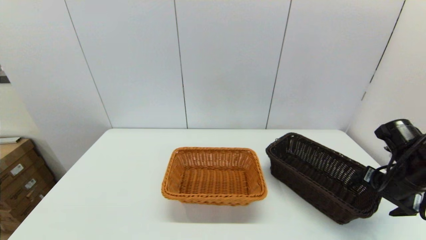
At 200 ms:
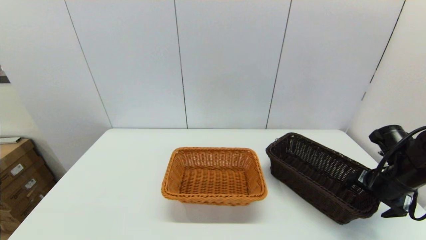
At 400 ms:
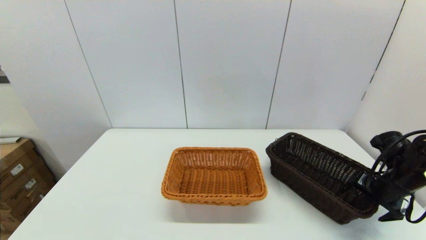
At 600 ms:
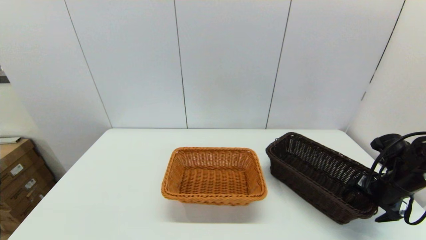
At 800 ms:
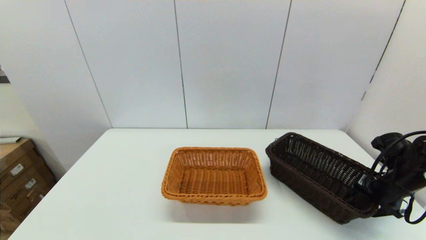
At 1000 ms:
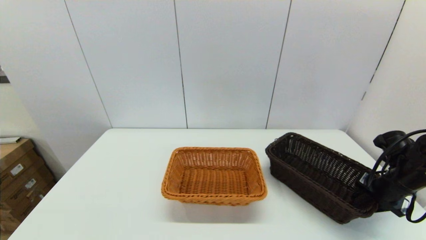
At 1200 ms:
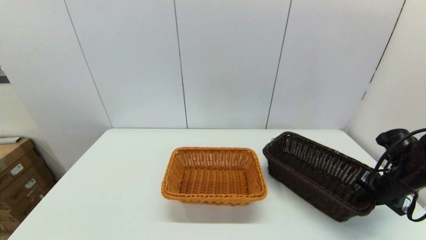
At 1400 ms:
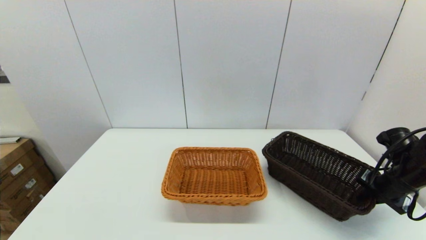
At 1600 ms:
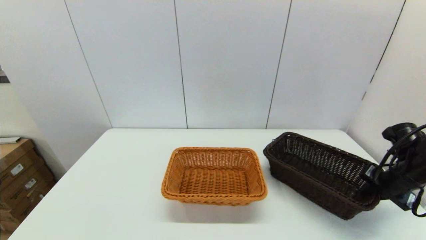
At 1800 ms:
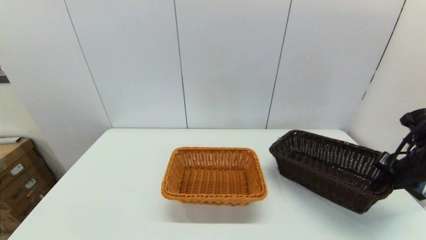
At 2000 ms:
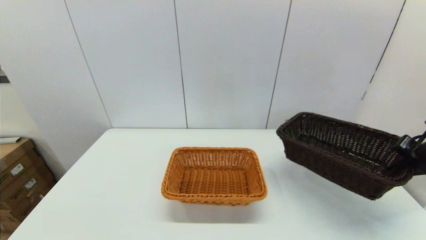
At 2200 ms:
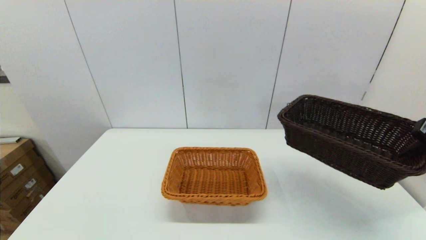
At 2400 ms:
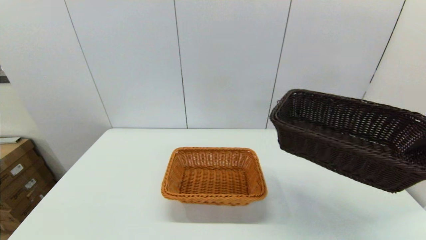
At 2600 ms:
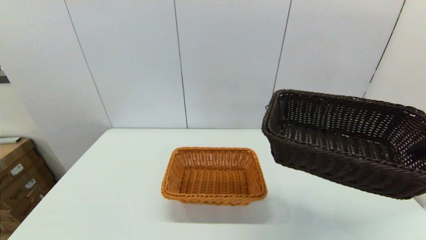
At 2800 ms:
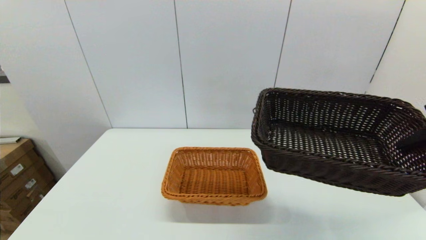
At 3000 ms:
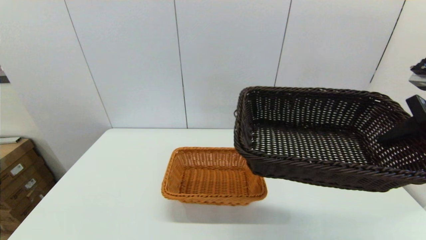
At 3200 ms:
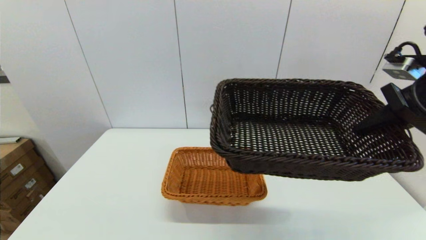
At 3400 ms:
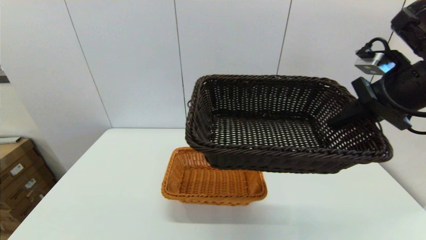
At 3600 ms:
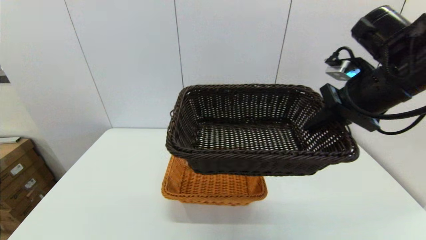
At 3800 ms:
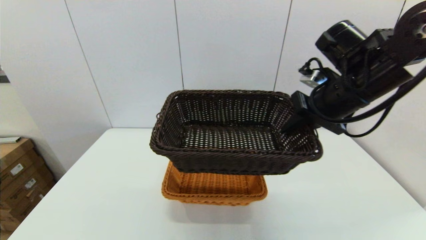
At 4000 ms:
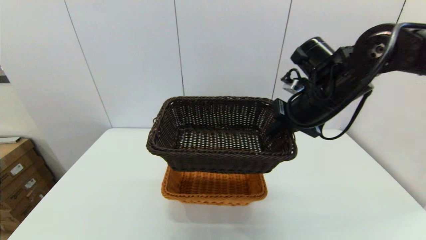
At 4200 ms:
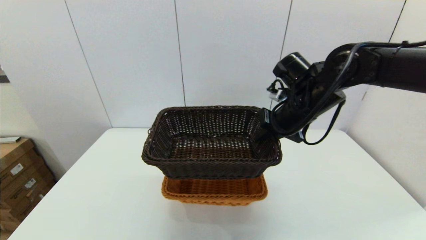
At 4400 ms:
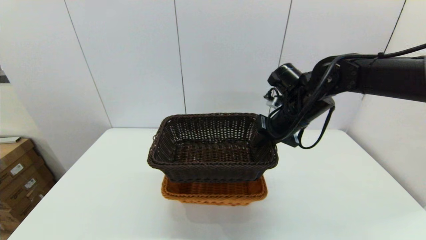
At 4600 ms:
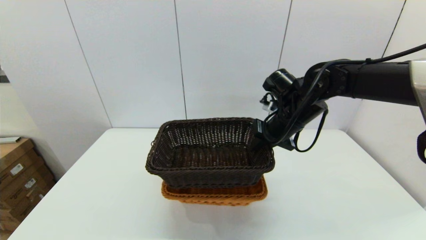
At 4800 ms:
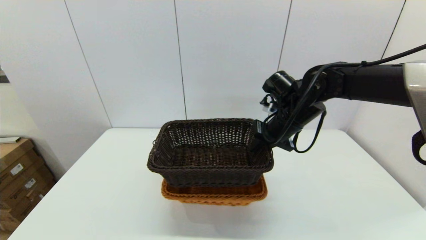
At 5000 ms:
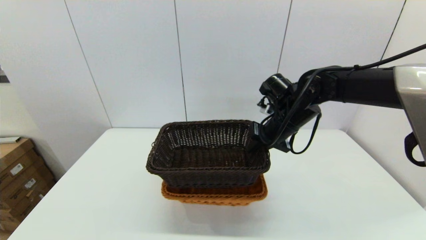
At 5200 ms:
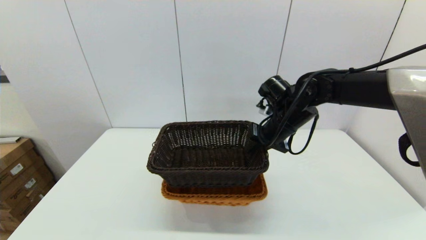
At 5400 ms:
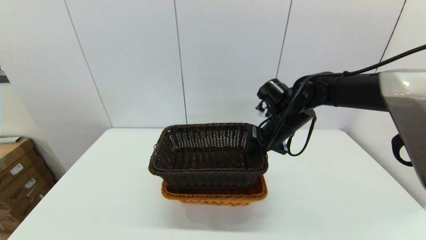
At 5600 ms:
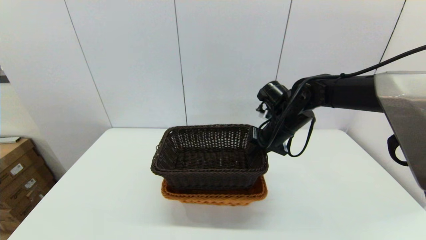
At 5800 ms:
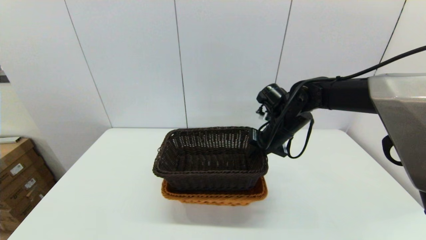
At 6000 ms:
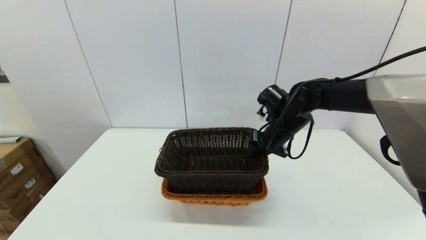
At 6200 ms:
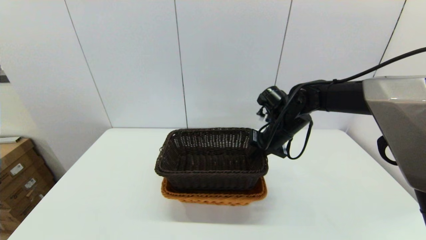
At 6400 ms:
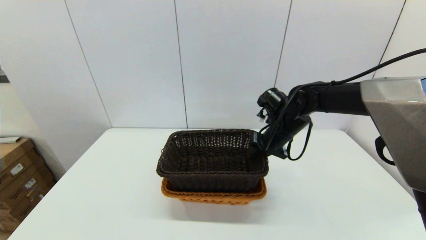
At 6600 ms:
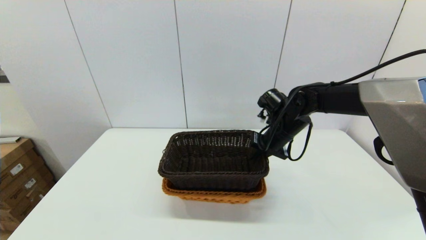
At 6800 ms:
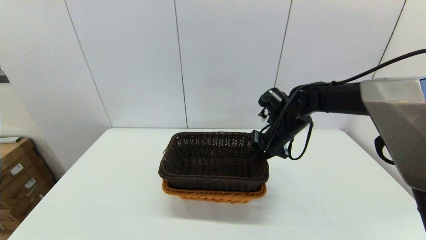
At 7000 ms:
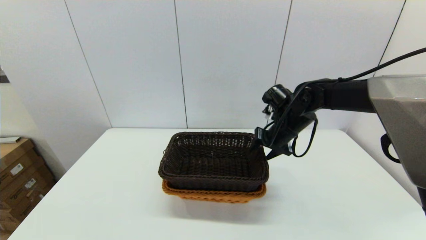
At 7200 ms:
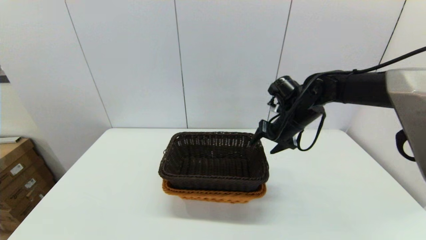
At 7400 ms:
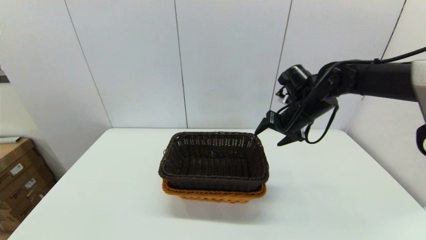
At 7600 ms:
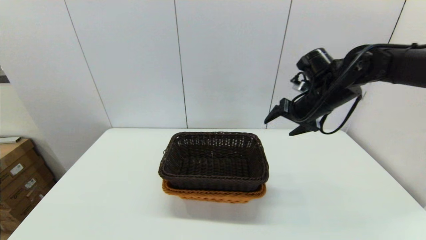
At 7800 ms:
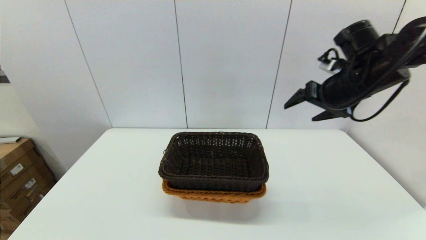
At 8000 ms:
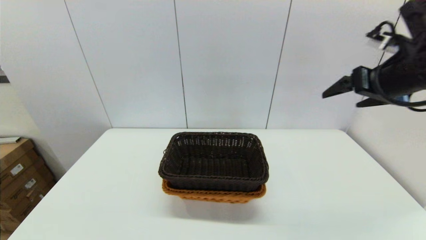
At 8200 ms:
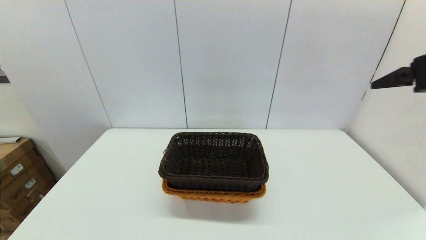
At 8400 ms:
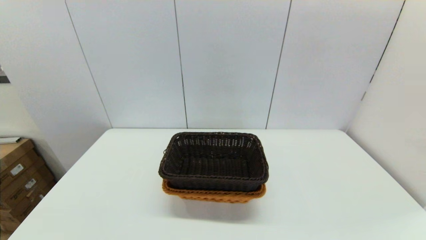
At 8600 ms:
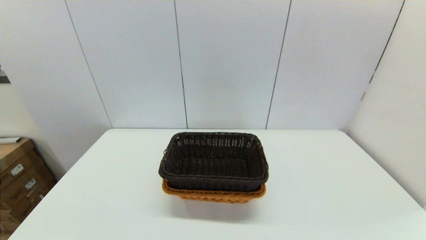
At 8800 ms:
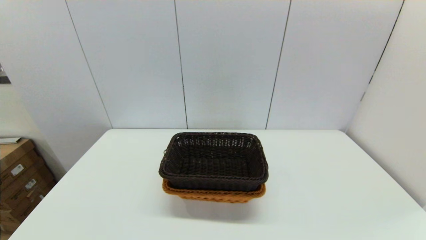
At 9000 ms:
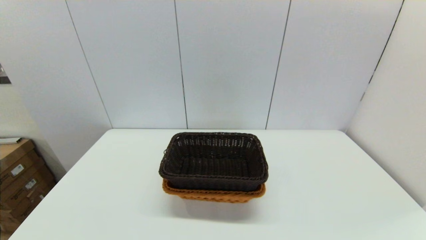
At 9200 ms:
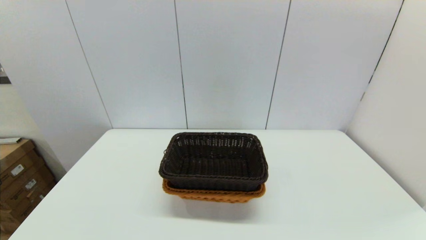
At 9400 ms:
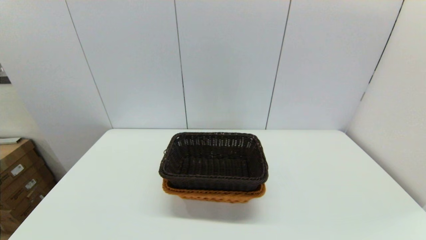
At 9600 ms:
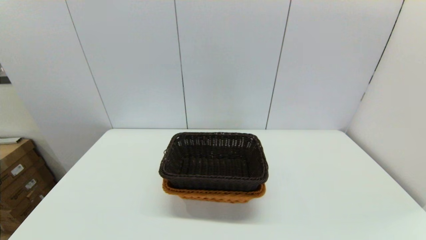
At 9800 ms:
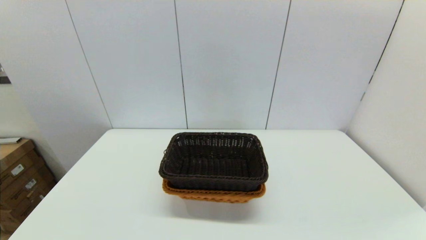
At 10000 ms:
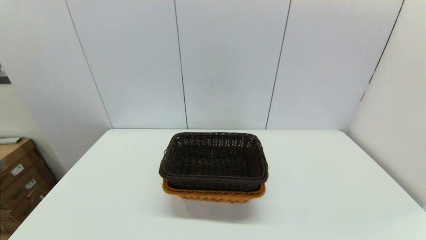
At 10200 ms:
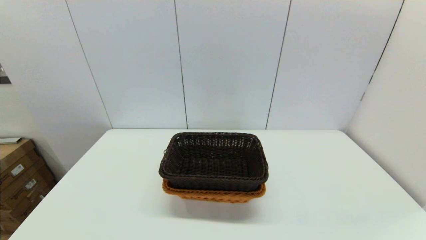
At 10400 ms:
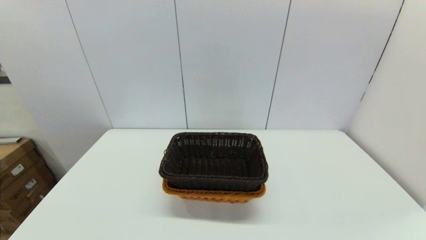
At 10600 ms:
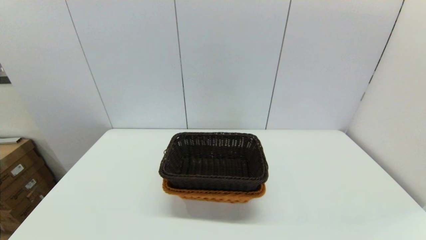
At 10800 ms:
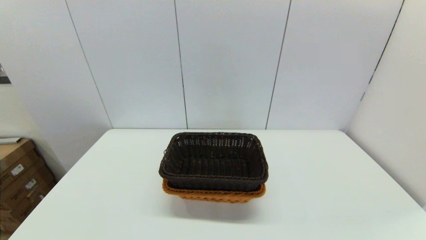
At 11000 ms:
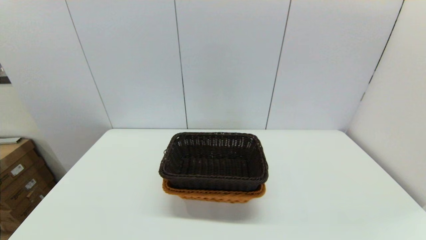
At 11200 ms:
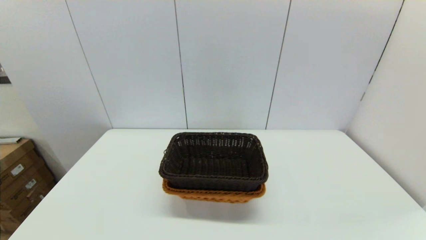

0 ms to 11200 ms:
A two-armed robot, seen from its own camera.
Task of the whole recording: stack a basket on top of another basket.
Step, 1200 ms to 7400 ms: Place the dark basket into the light color basket with the right gripper.
0 ms to 1600 ms: The right gripper closes.
1600 ms to 3200 ms: The right gripper travels upward and to the left by approximately 25 cm.
3200 ms to 4800 ms: The right gripper is displaced to the left, forward and downward by approximately 25 cm.
4800 ms to 6400 ms: The right gripper shifts by about 5 cm.
6400 ms to 8000 ms: The right gripper shifts approximately 25 cm upward, to the right and backward, and opens its fingers.
8000 ms to 9600 ms: The right gripper is displaced backward and downward by approximately 35 cm.

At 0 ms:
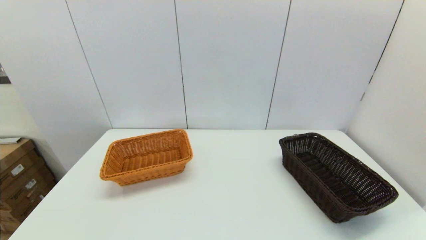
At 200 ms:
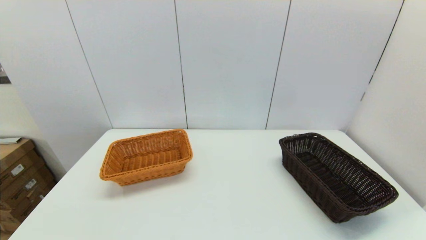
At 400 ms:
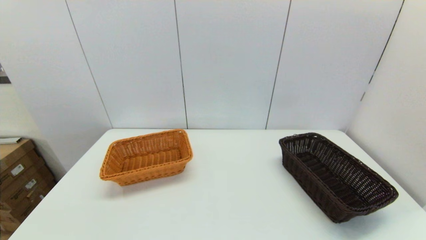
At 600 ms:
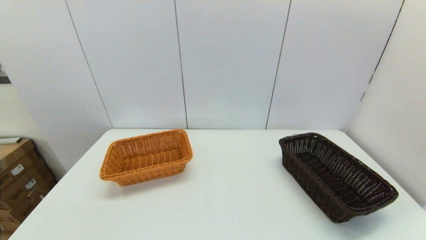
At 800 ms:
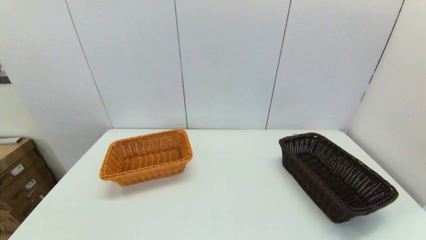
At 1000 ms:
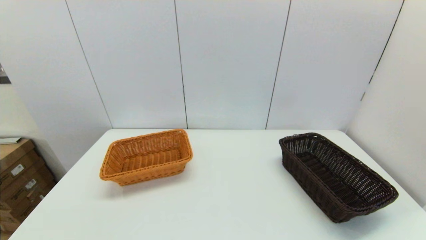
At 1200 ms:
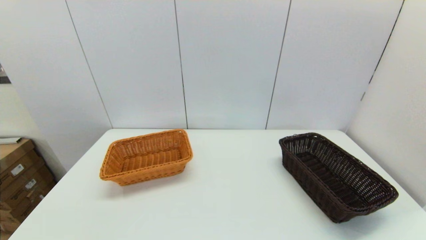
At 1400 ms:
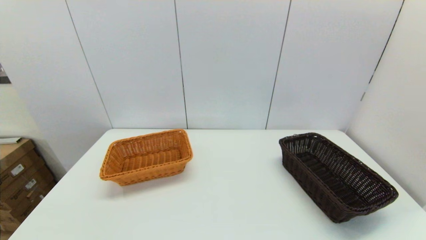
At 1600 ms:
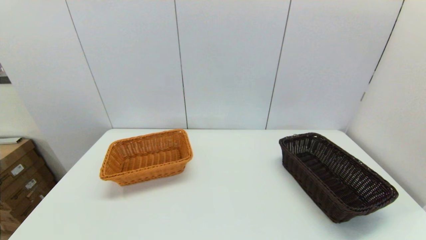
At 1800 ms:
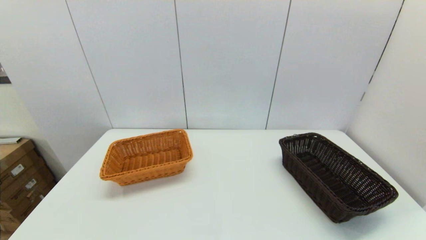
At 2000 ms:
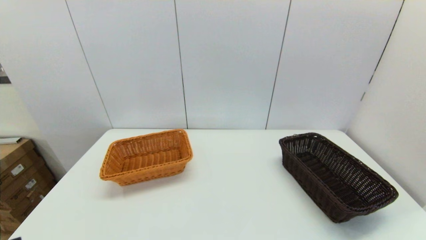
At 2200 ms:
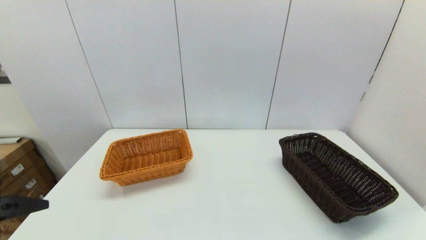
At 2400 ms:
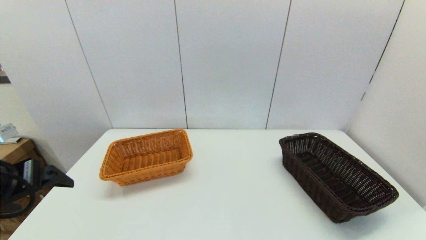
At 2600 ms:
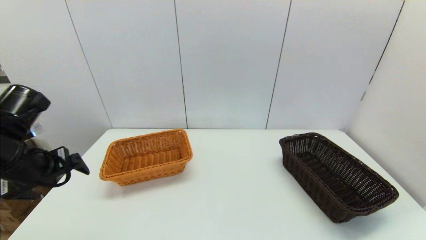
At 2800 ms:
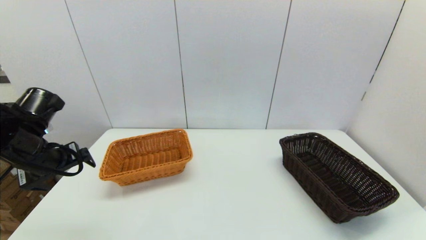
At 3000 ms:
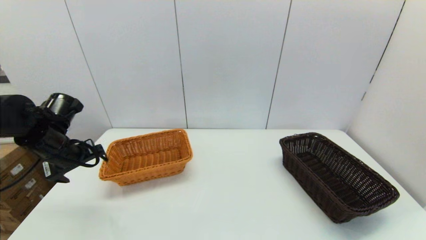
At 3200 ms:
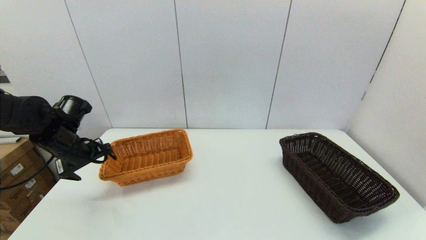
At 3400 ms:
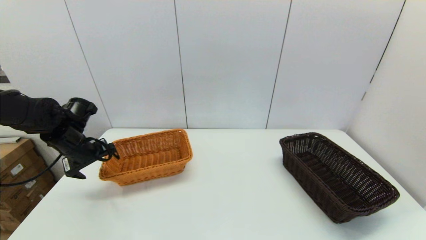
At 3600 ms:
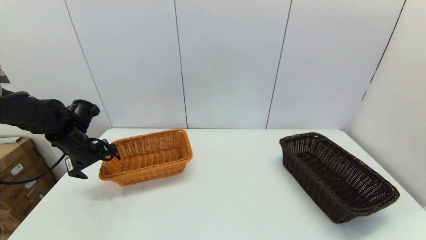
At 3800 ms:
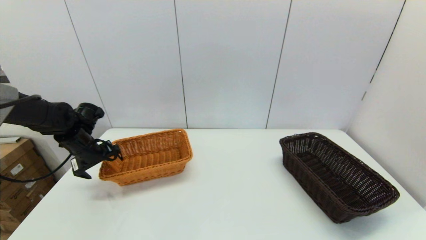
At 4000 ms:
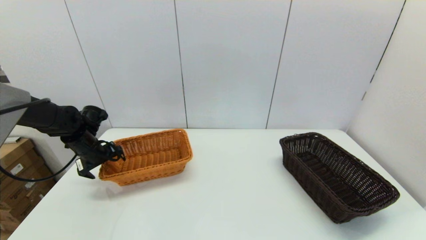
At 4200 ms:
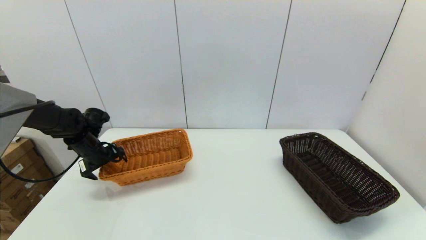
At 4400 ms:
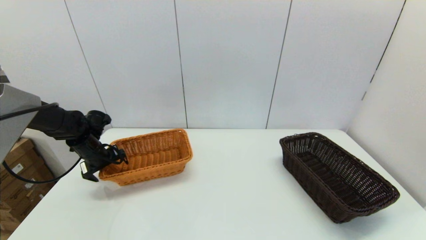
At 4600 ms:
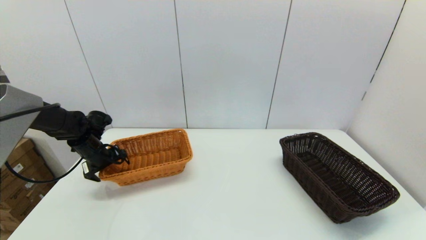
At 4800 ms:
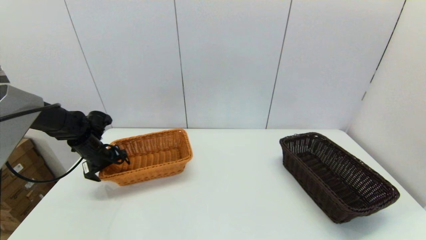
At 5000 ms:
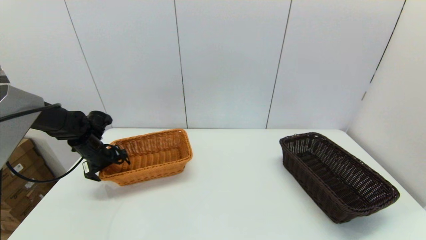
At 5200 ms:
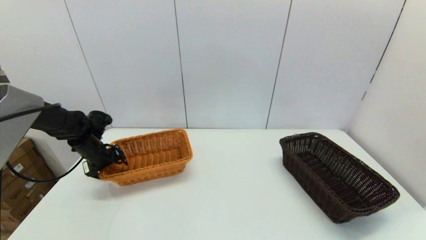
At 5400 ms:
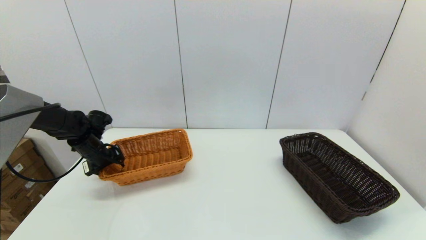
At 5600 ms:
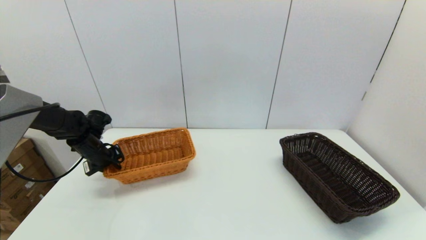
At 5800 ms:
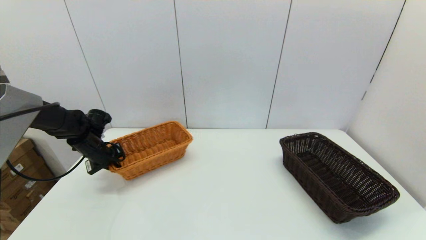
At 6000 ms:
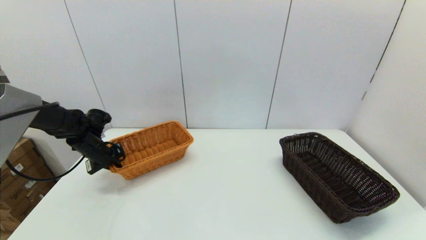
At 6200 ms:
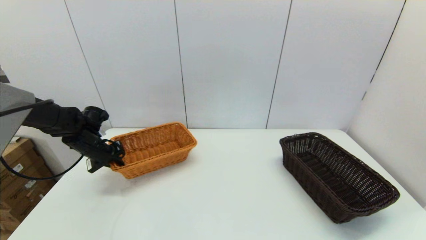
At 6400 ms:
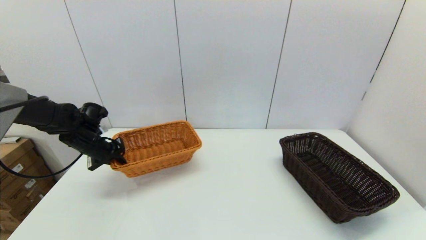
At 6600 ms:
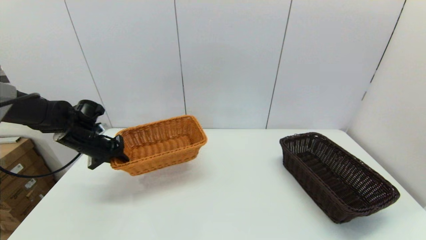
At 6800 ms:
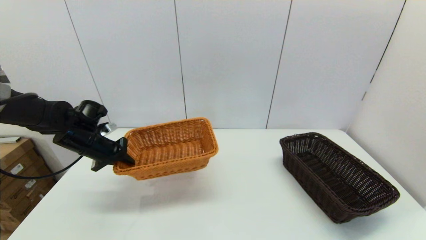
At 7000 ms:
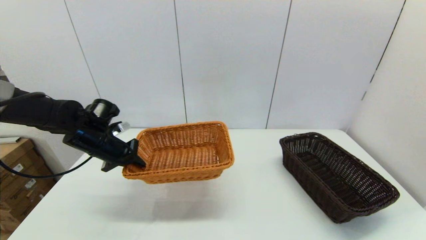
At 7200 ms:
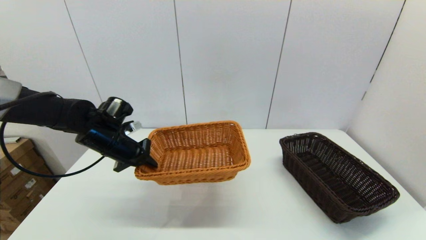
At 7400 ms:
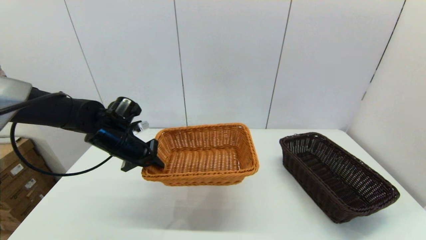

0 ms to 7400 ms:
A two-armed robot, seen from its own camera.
Task of the whole recording: stack a basket on top of another basket.
Step, 2000 ms to 5600 ms: Grasp the light basket with the left gripper.
1400 ms to 3000 ms: The left gripper shifts approximately 35 cm forward.
3000 ms to 4400 ms: The left gripper goes some 15 cm forward and downward.
4400 ms to 6000 ms: The left gripper closes its fingers.
6000 ms to 7400 ms: The left gripper heads to the right, upward and backward, covering roughly 15 cm.
